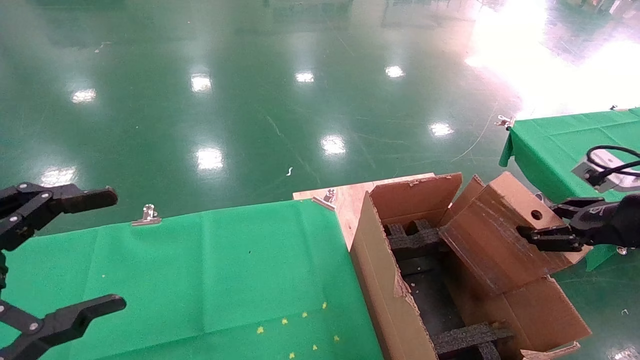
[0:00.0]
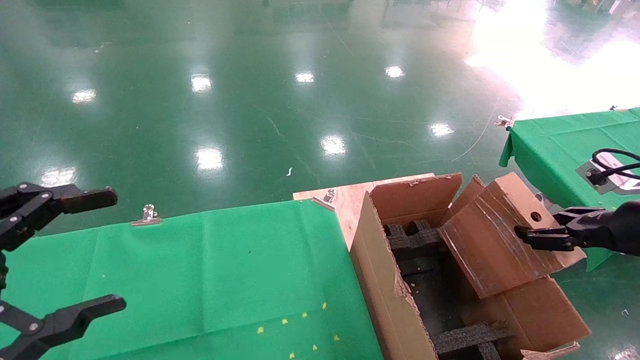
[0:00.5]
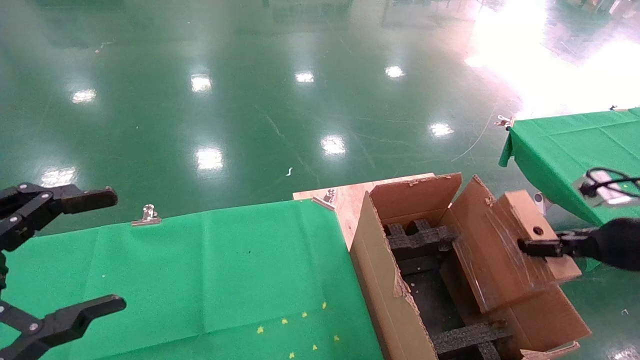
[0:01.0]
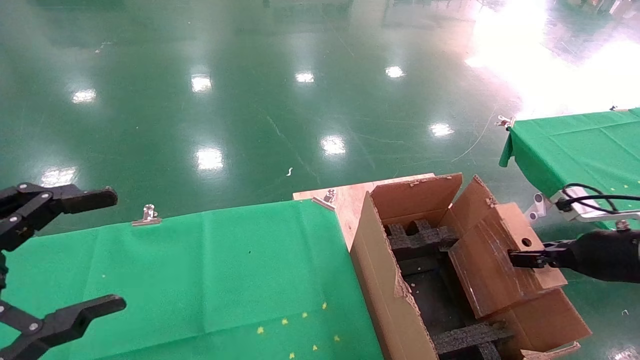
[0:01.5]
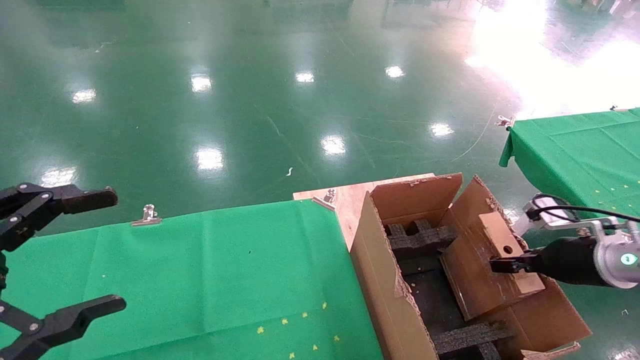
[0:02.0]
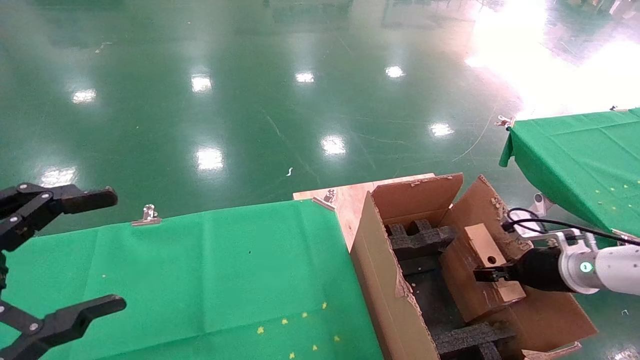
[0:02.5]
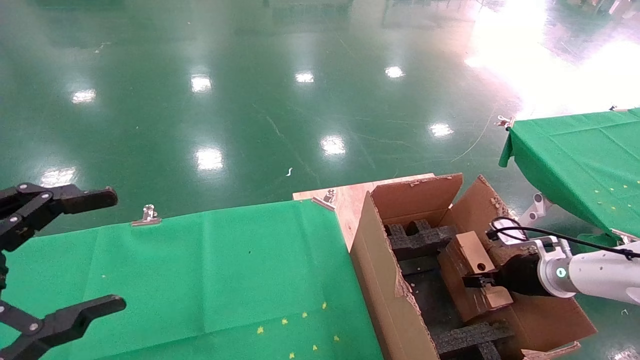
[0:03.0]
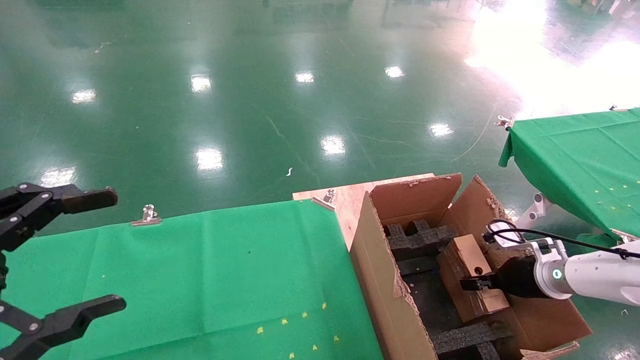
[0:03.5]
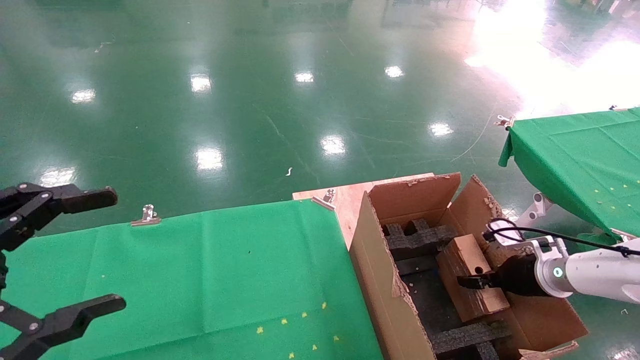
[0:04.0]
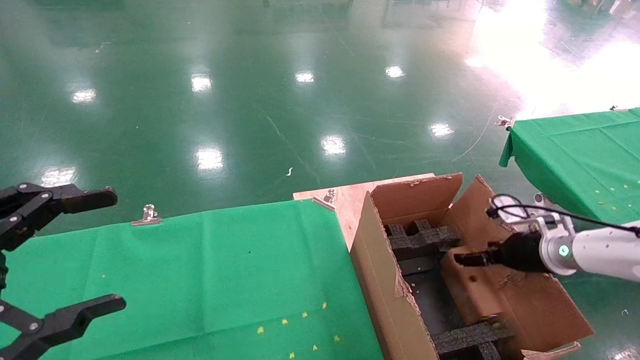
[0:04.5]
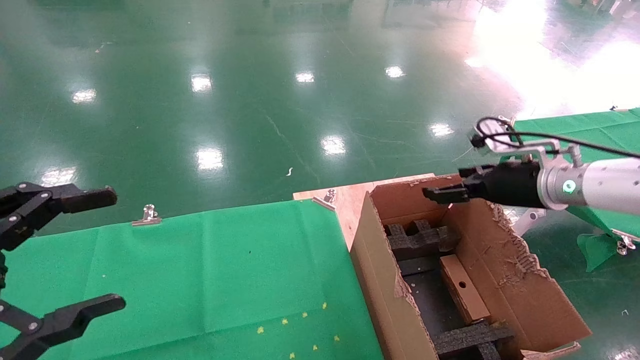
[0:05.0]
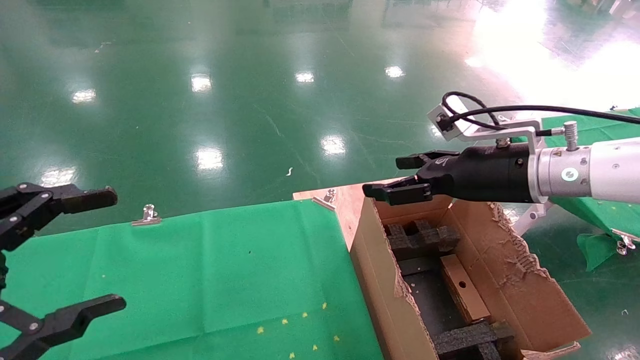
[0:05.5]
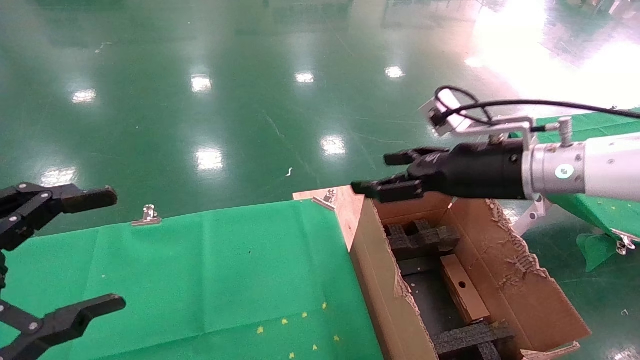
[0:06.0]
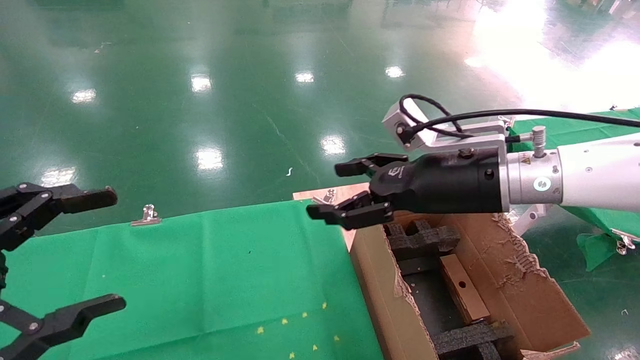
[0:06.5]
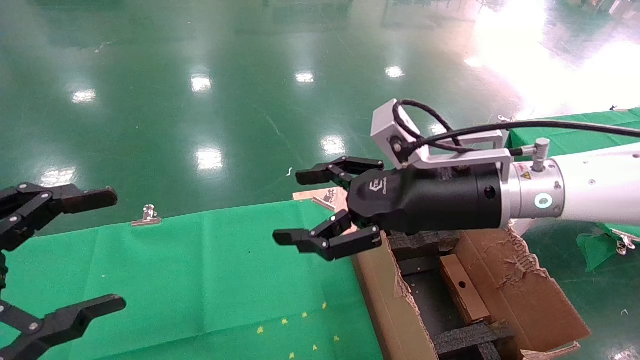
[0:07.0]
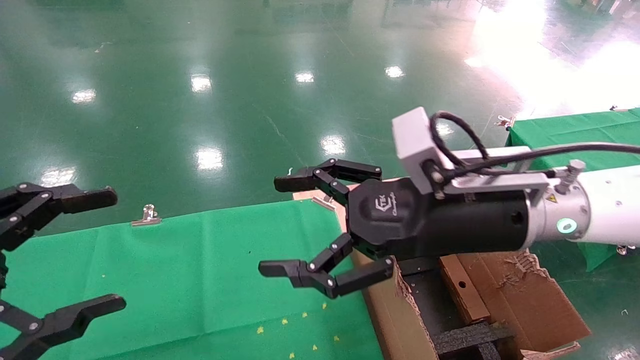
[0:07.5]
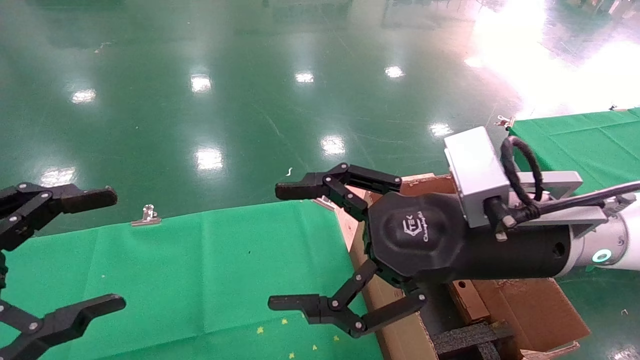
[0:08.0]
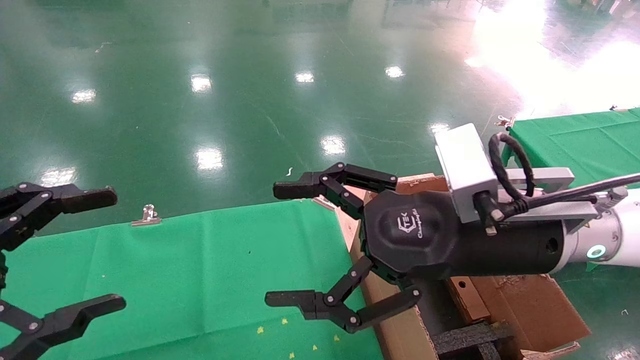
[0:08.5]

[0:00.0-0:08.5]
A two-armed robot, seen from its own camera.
Task of the whole recording: using a robotic arm to pick up a cardboard box and palace it the carton.
Step, 0:00.0 to 0:04.5: Place the mouse and the power cord paper box into the container.
0:00.0 to 0:02.0: The right gripper heads downward and forward, covering some 15 cm.
0:02.0 to 0:04.0: The right gripper moves downward and forward, roughly 10 cm.
0:04.0 to 0:06.5: The right gripper goes roughly 30 cm upward and to the left, and opens its fingers.
0:06.5 to 0:08.5: The right gripper shifts some 10 cm backward.

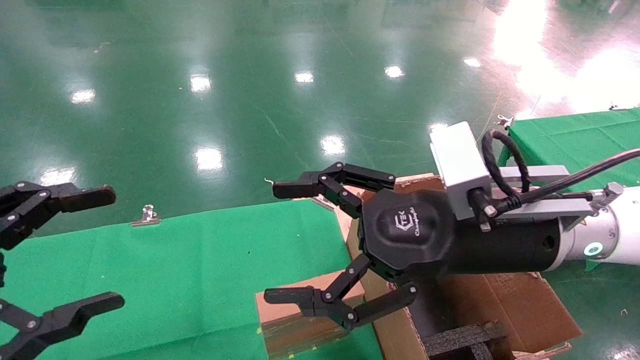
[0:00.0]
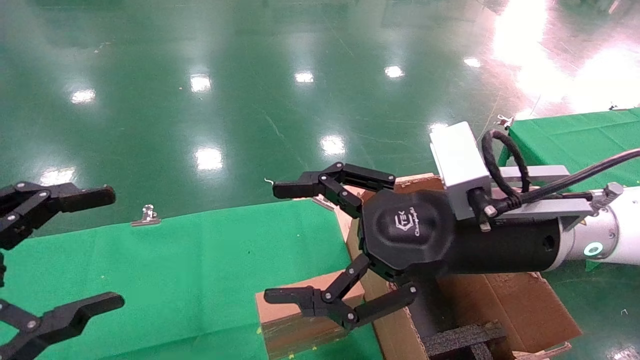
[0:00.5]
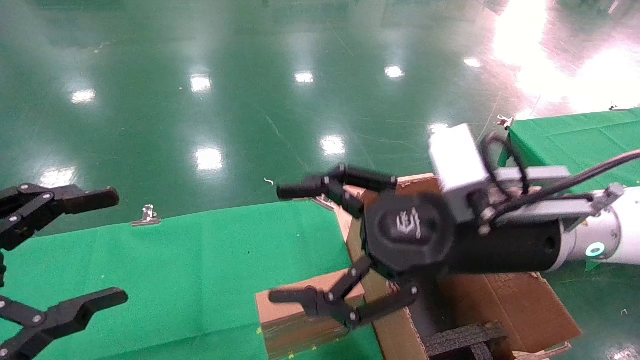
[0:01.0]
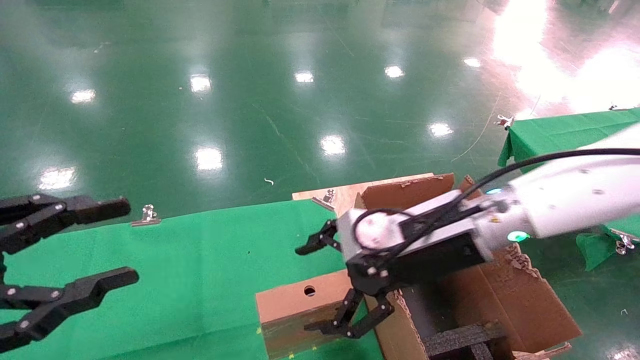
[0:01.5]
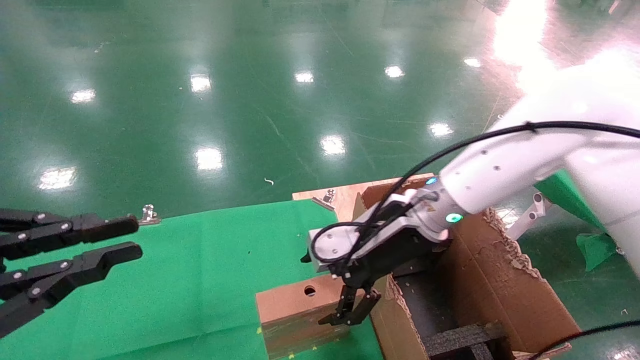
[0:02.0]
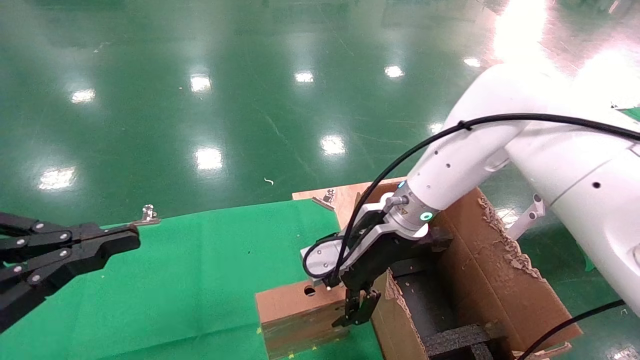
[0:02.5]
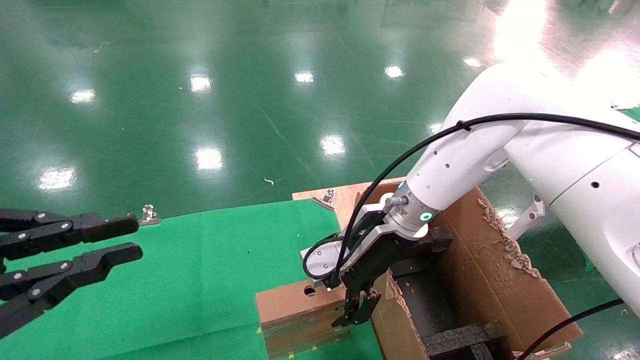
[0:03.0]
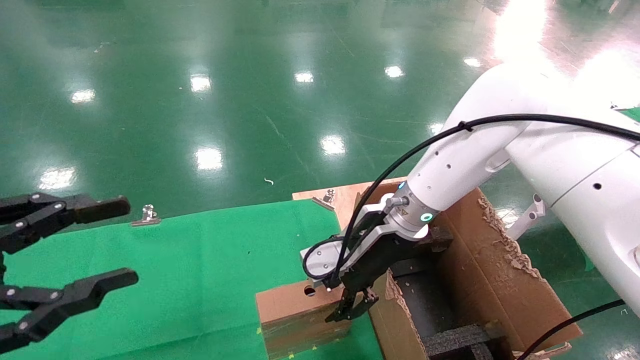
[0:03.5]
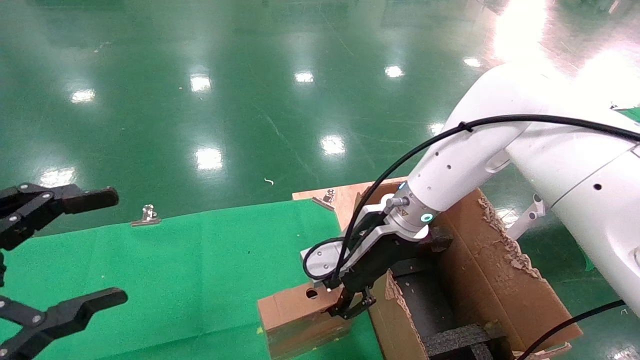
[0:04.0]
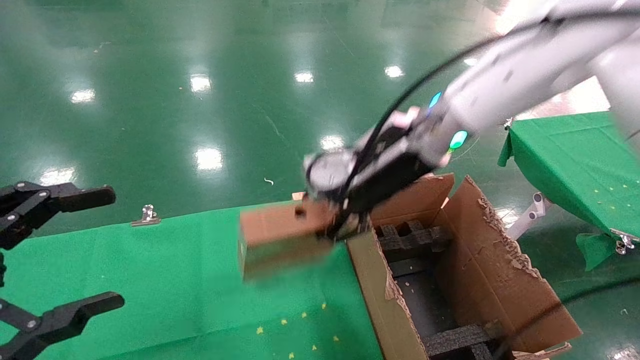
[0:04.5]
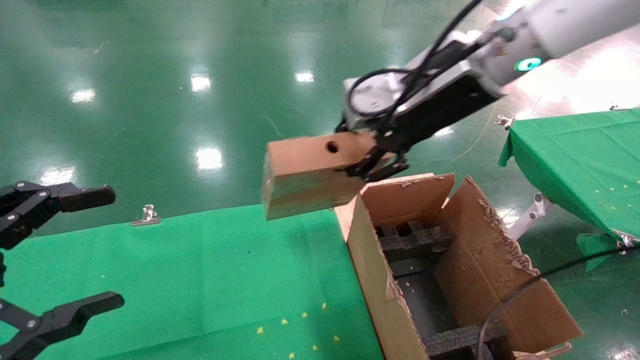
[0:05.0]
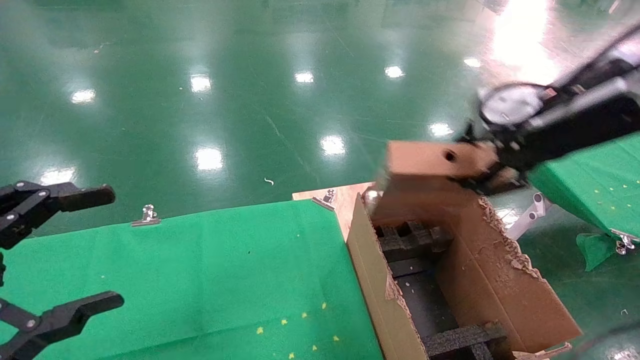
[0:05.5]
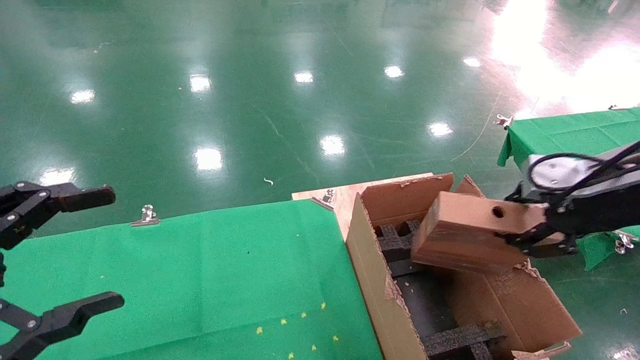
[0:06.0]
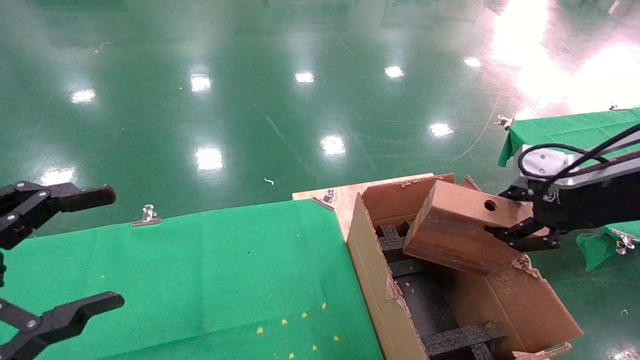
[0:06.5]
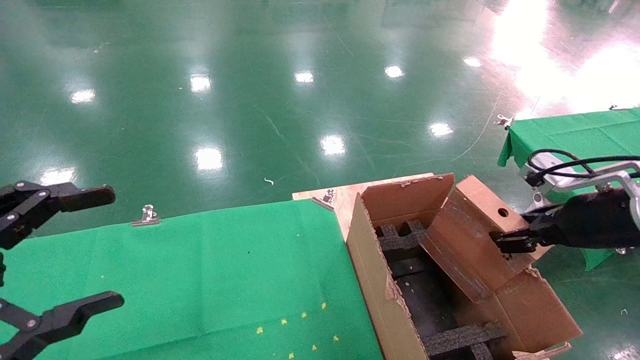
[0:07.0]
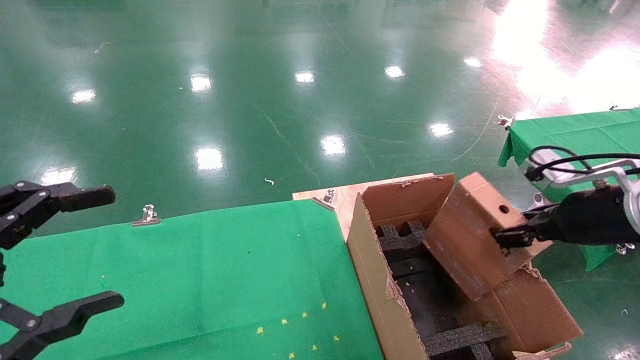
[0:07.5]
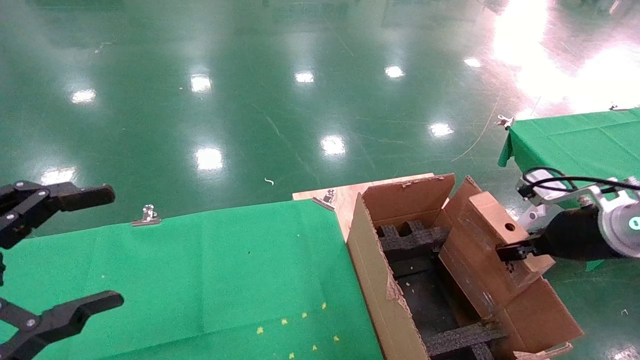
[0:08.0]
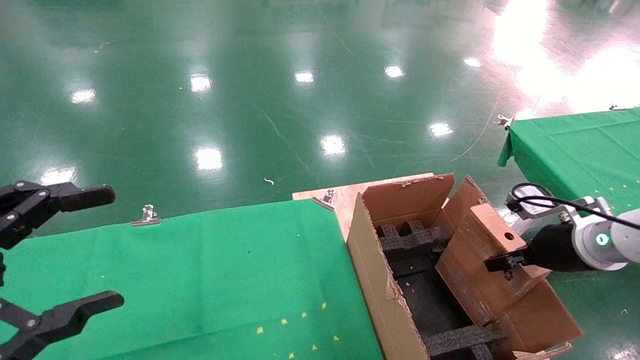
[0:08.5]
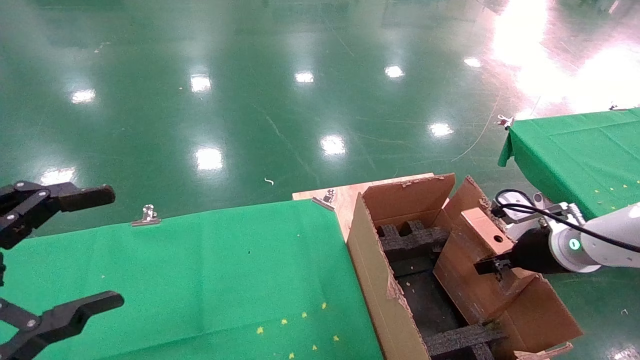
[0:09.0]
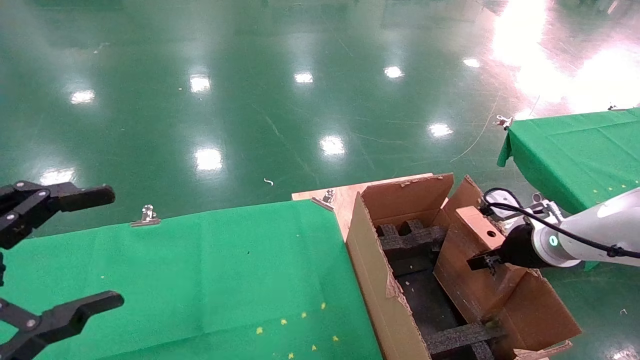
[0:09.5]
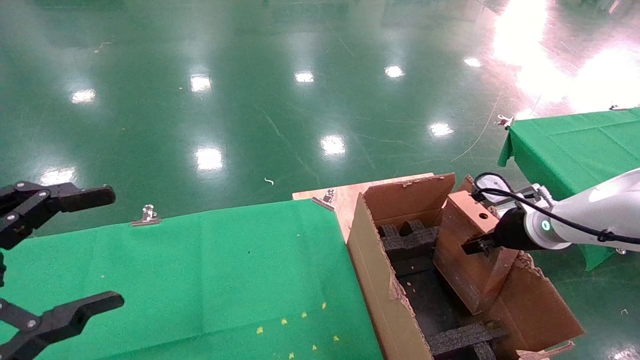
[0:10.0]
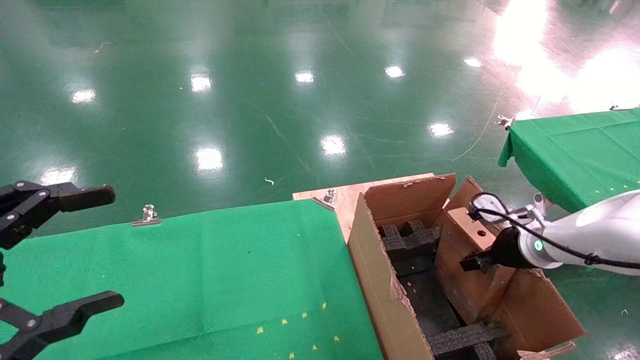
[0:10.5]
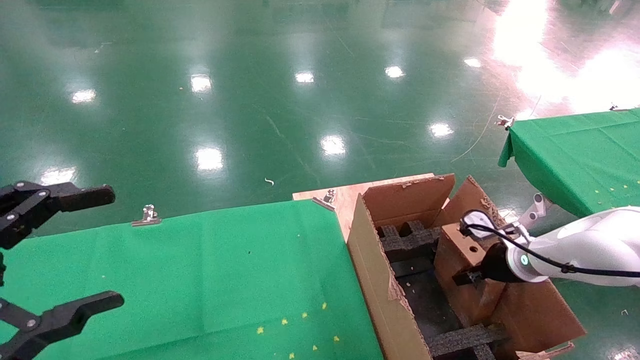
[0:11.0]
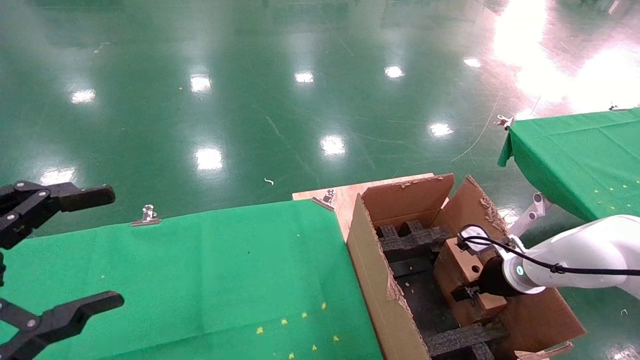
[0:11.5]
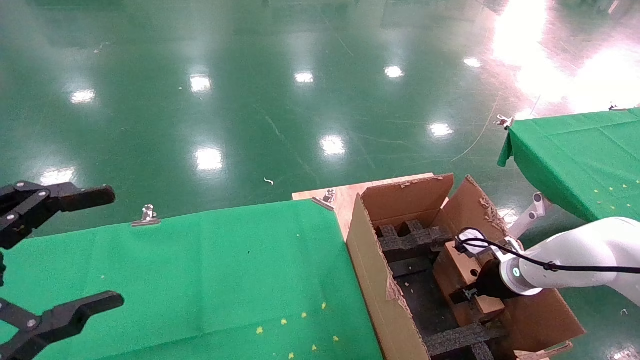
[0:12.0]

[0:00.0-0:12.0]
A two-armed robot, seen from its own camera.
Task of the whole recording: using a robotic arm to pick up a cardboard box and palace it the carton.
Step, 0:01.5 to 0:03.5: Pick up the mouse and the power cord paper box.
0:00.0 to 0:02.0: The left gripper closes up. The right gripper travels forward by some 10 cm.
0:02.0 to 0:04.0: The right gripper closes its fingers. Meanwhile the left gripper opens.
0:04.0 to 0:06.0: The right gripper moves to the right, backward and upward, approximately 30 cm.
0:06.0 to 0:08.0: The right gripper goes about 10 cm downward and forward.
0:08.0 to 0:10.0: The right gripper is displaced forward by roughly 10 cm.
0:10.0 to 0:12.0: The right gripper is displaced downward by approximately 10 cm.
